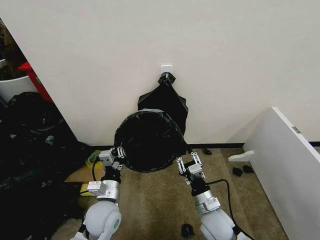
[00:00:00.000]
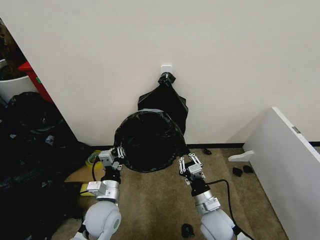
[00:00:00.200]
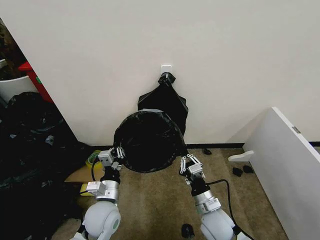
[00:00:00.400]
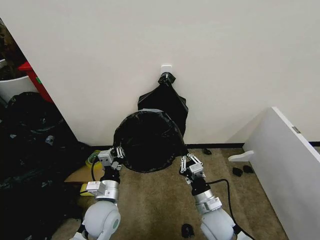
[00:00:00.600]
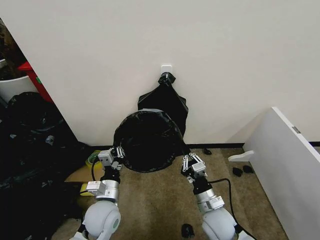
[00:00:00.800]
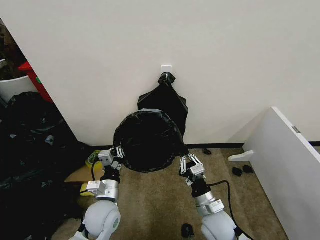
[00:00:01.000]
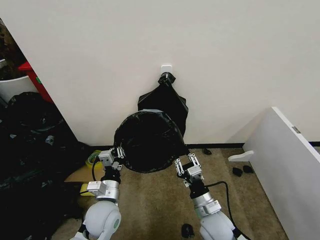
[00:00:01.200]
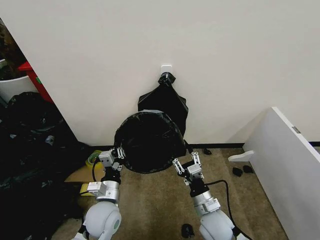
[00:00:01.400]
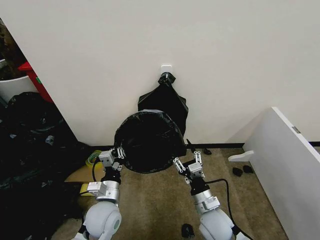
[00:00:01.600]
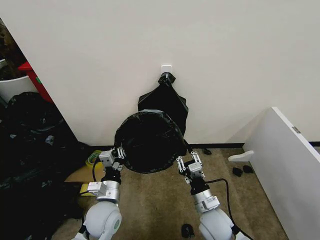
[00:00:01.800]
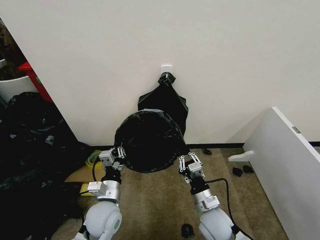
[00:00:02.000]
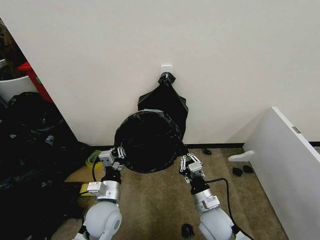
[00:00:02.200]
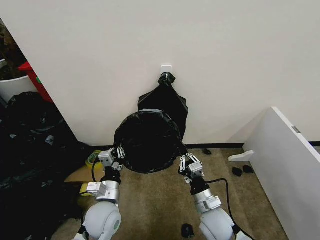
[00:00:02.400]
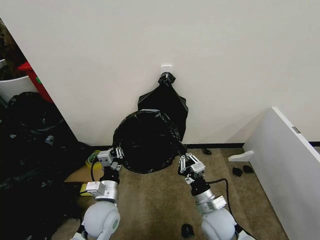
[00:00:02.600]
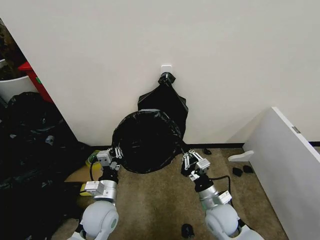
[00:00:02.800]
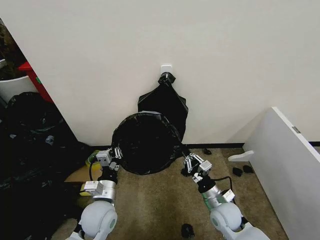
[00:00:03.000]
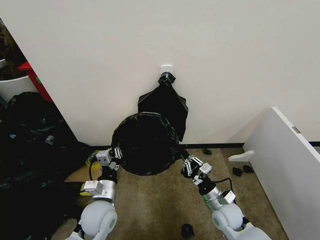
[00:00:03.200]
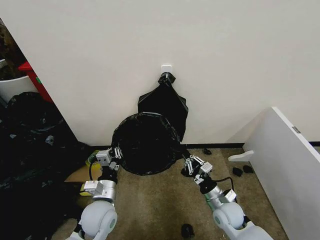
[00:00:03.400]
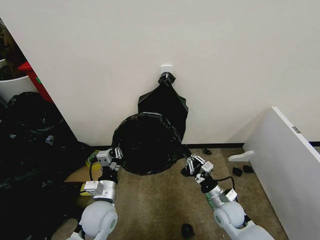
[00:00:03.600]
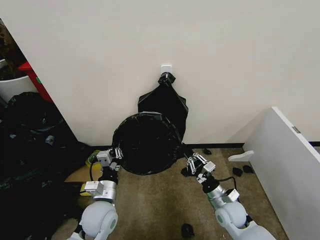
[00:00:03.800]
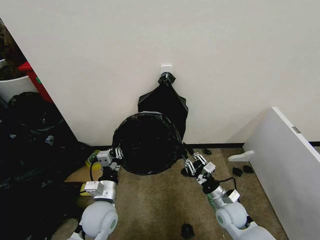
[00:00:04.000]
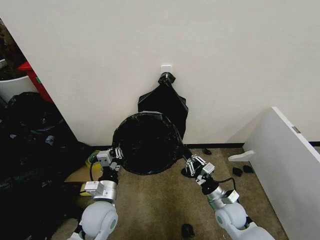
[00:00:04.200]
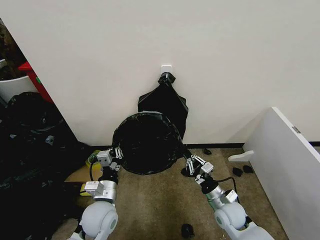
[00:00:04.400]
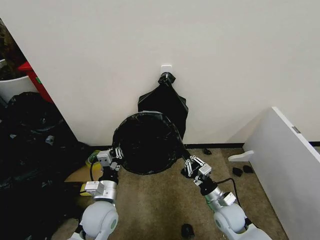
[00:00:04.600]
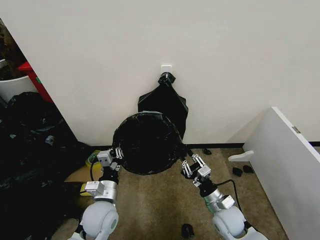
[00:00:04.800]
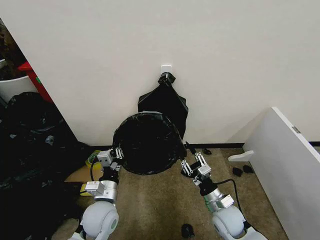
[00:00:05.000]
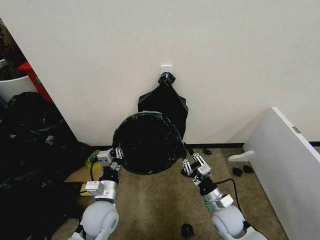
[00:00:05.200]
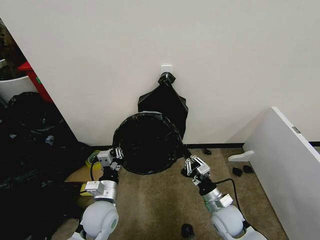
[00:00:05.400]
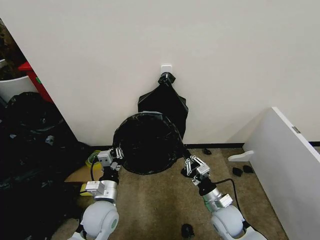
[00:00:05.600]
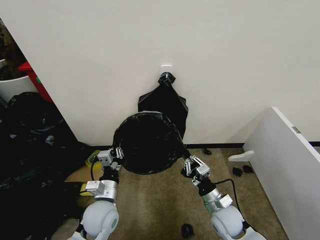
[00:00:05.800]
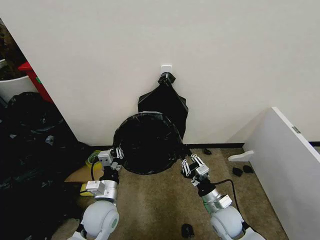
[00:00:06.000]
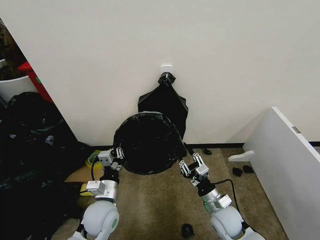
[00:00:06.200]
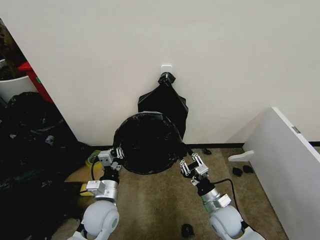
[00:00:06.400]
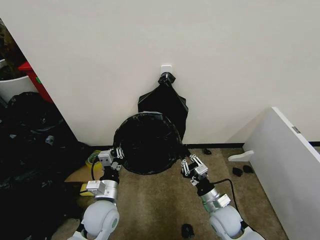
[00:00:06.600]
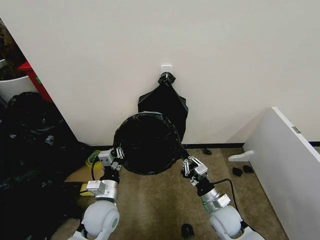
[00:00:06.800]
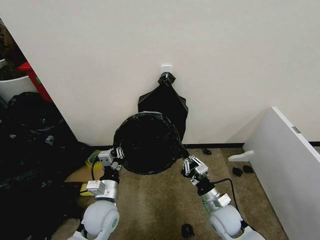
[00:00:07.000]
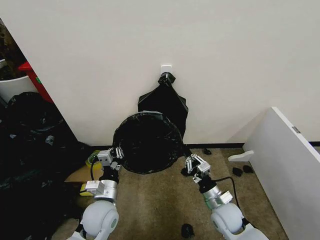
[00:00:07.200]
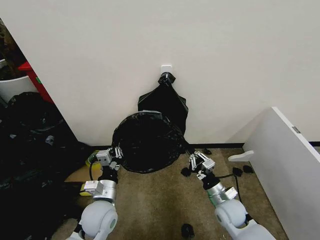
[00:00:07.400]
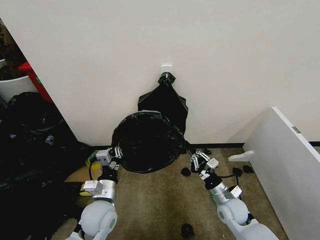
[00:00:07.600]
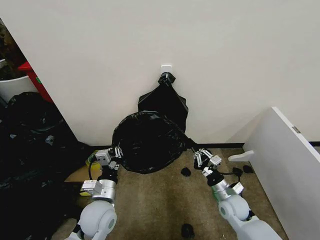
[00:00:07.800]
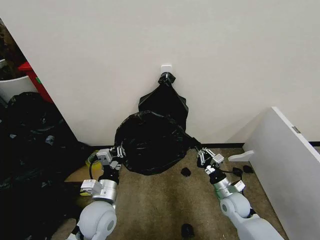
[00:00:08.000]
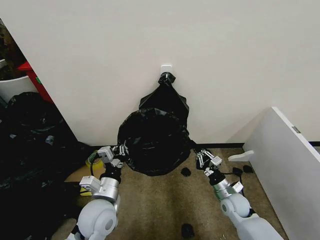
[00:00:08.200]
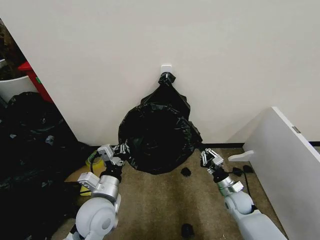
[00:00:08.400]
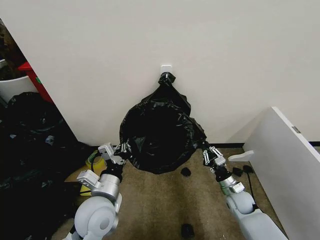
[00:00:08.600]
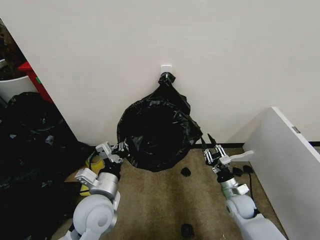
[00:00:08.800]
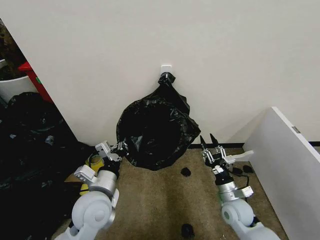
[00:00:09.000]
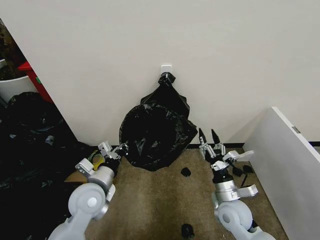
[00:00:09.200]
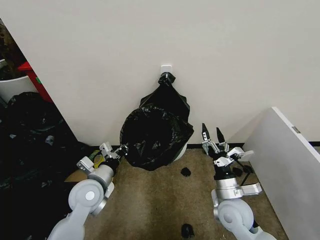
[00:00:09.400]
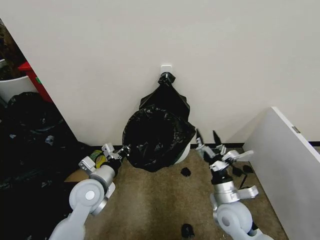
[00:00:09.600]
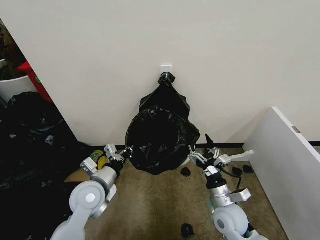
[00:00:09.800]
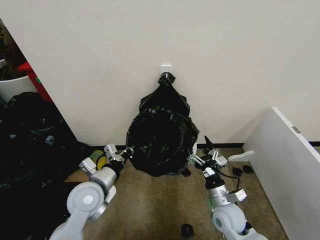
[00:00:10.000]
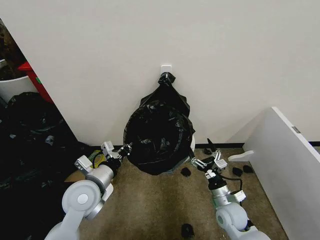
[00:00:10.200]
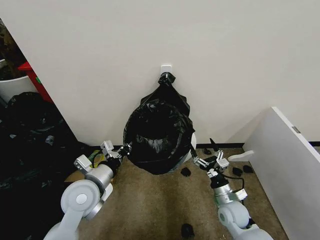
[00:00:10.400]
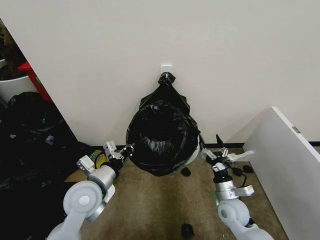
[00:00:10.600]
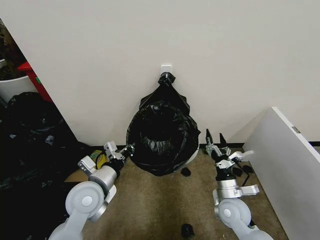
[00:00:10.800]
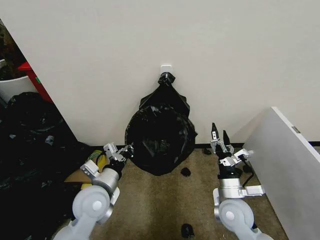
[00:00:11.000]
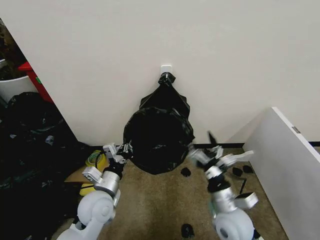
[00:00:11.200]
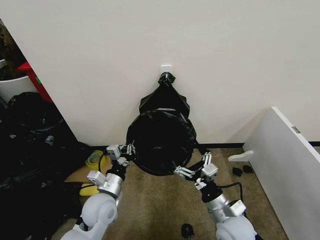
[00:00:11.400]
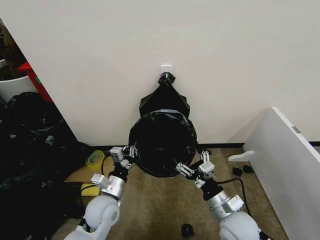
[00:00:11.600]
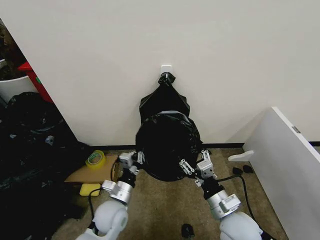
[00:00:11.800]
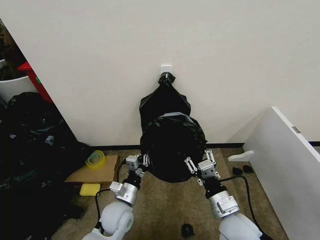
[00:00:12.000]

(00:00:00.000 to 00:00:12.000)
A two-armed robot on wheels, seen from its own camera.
Task of the whole recording: Place the garbage bag over the trash bin.
00:00:00.000 - 00:00:01.600: The grippers move only a little.
00:00:01.600 - 00:00:03.000: The right gripper moves approximately 5 cm, and closes its fingers.
00:00:03.000 - 00:00:07.600: The grippers move only a little.
00:00:07.600 - 00:00:09.000: The right gripper opens up. Meanwhile the left gripper goes about 5 cm upward.
00:00:09.000 - 00:00:10.400: The right gripper moves some 10 cm upward and comes back, and opens its fingers.
00:00:10.400 - 00:00:12.000: The right gripper travels upward, backward and to the left by some 15 cm, and closes up, while the left gripper goes about 15 cm downward and to the right.

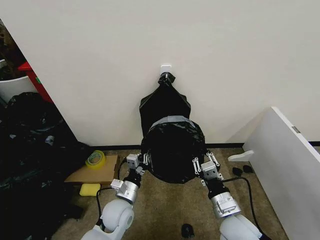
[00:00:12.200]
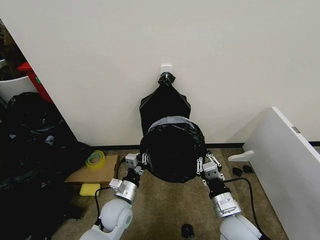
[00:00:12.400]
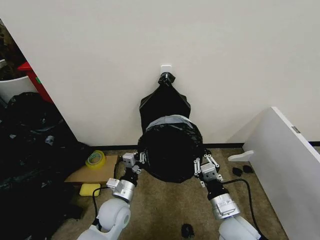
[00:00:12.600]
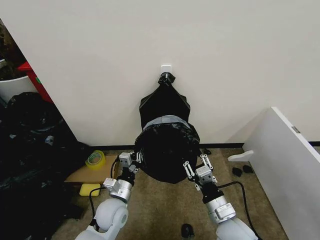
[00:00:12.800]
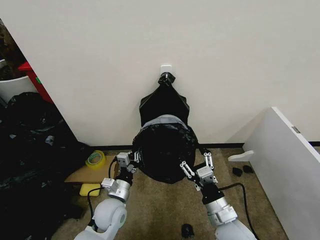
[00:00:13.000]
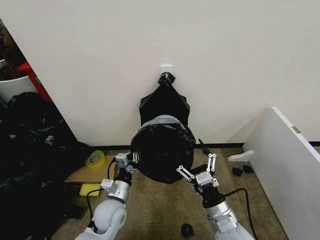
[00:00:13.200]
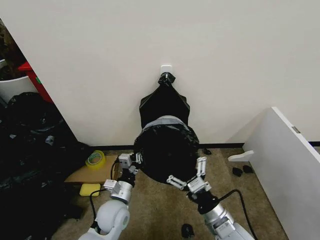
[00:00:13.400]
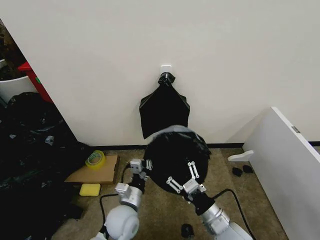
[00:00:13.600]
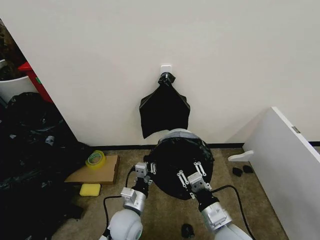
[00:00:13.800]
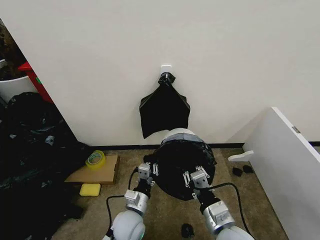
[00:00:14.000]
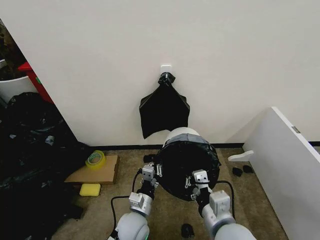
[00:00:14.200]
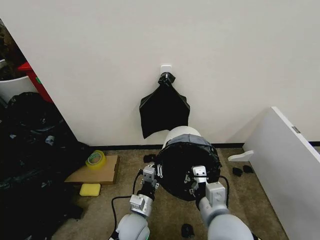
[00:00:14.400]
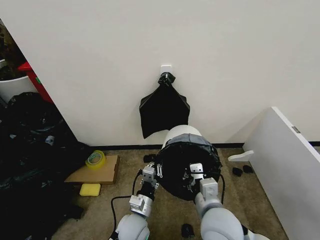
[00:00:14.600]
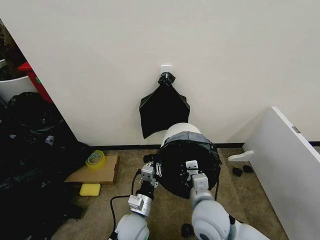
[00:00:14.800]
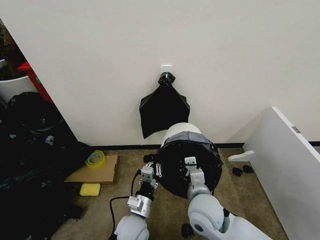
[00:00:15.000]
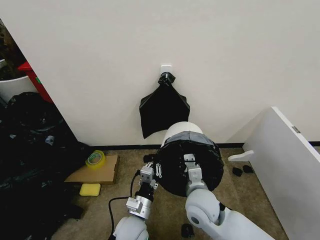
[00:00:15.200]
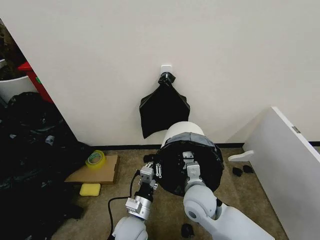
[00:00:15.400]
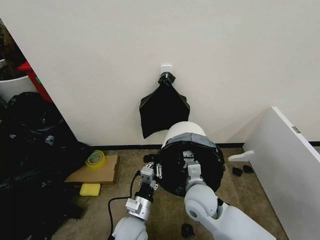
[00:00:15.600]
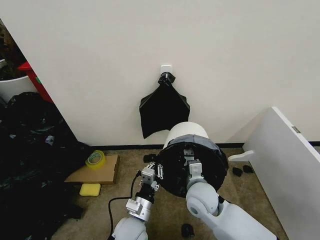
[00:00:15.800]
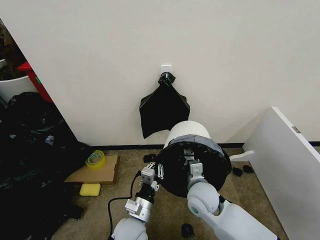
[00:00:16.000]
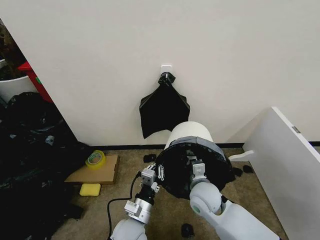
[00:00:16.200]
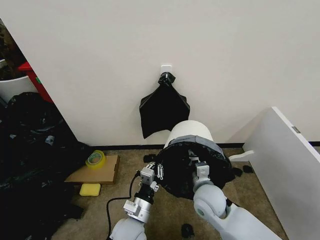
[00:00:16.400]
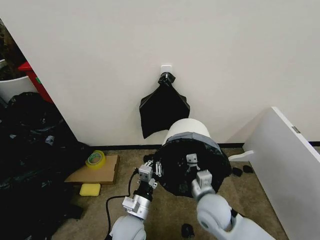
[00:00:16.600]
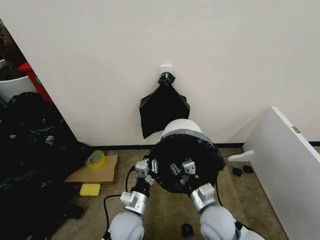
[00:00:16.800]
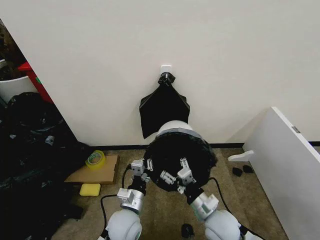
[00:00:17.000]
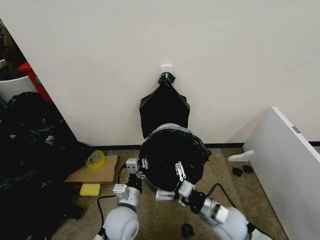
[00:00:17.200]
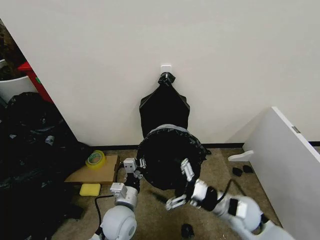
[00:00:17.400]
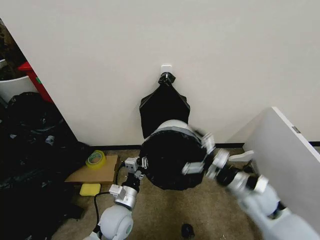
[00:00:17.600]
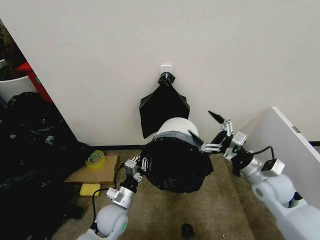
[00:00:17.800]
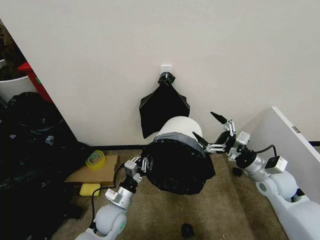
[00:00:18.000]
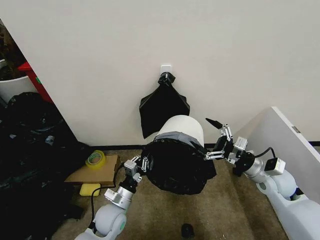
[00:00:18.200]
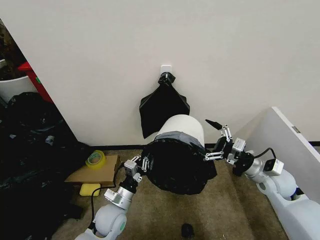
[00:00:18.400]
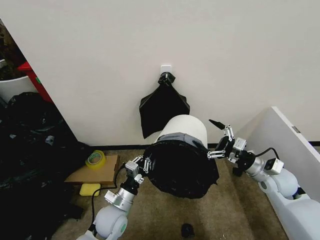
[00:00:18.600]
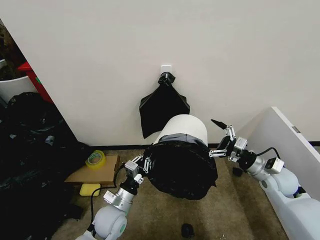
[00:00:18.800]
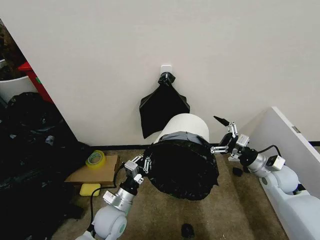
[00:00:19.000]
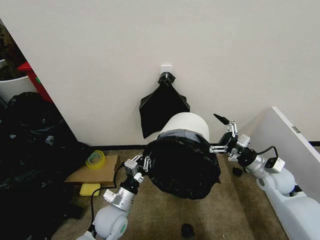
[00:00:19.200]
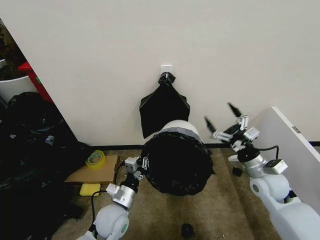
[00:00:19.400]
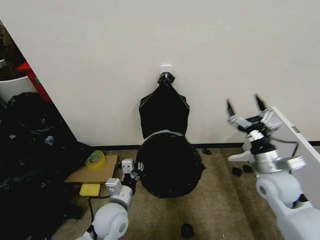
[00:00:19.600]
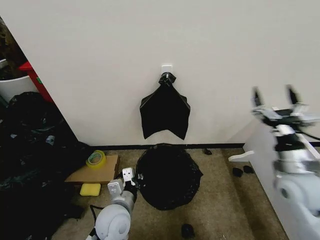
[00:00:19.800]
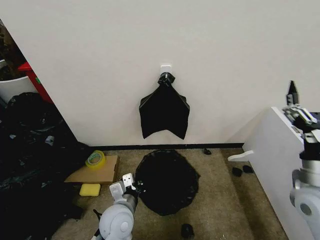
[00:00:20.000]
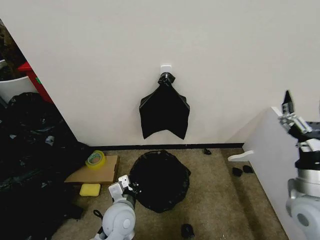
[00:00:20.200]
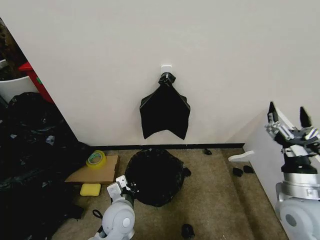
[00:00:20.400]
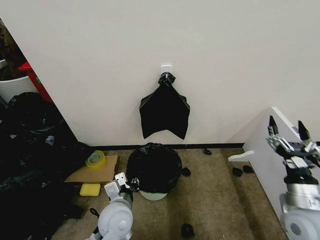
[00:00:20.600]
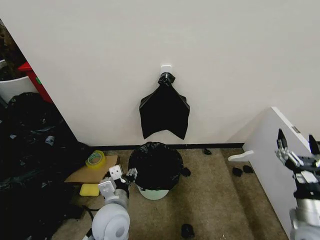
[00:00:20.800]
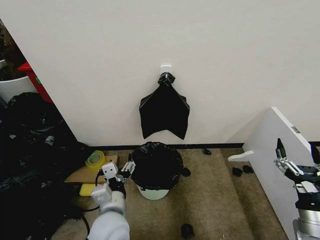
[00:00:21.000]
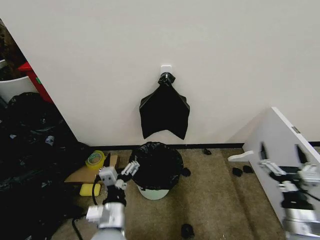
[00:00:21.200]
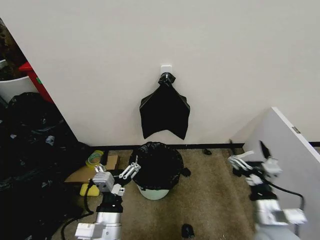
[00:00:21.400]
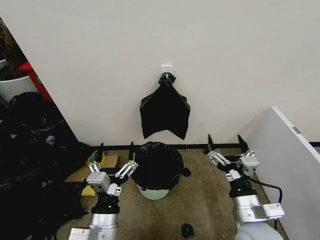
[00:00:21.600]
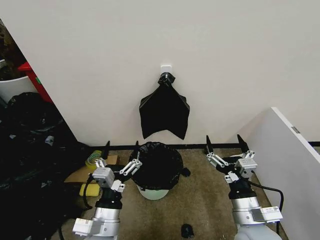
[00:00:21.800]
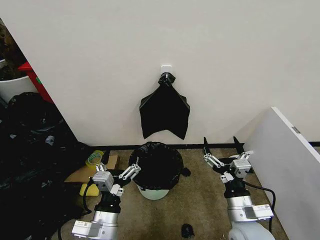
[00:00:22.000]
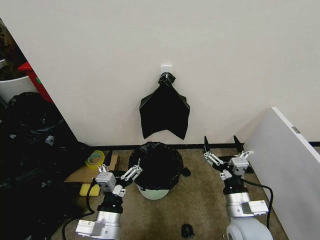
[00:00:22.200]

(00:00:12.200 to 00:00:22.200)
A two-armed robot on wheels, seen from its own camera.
Task of the whole recording: Place the garbage bag over the trash bin.
00:00:12.200 - 00:00:13.600: The right gripper opens up.
00:00:13.600 - 00:00:15.000: The right gripper is displaced to the left and forward by roughly 10 cm, and closes up.
00:00:15.000 - 00:00:16.400: The right gripper moves some 5 cm.
00:00:16.400 - 00:00:18.000: The right gripper is displaced to the right by roughly 20 cm, and opens its fingers. The left gripper shifts approximately 10 cm to the left and forward.
00:00:18.000 - 00:00:19.400: There are only small adjustments of the grippers.
00:00:19.400 - 00:00:20.800: The right gripper is displaced backward by some 15 cm. Meanwhile the left gripper is displaced upward by roughly 5 cm, and opens its fingers.
00:00:20.800 - 00:00:22.200: The left gripper moves backward, about 10 cm, and opens, while the right gripper travels to the left by approximately 15 cm.
